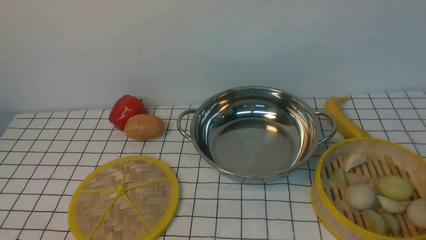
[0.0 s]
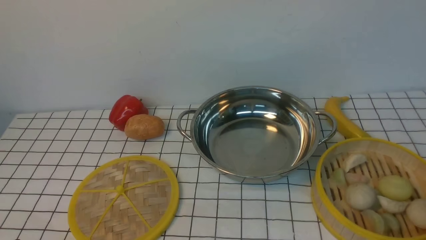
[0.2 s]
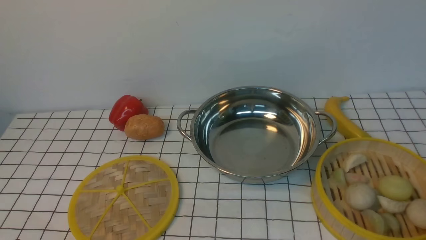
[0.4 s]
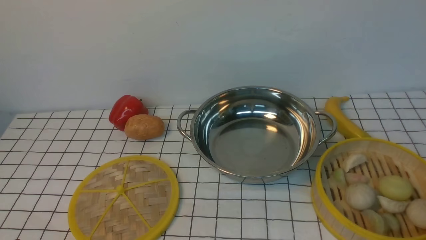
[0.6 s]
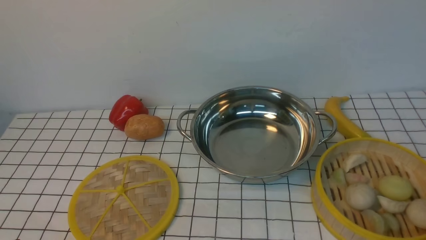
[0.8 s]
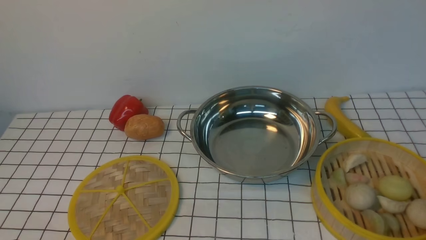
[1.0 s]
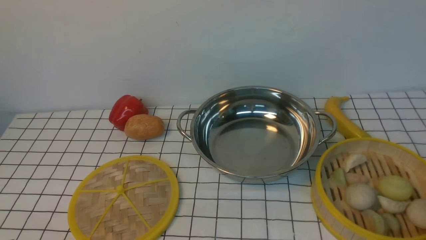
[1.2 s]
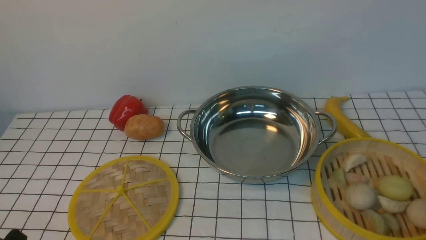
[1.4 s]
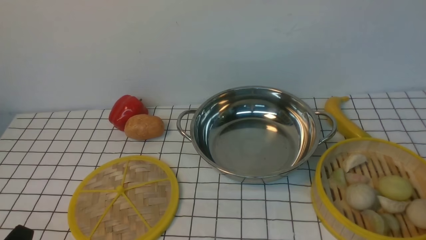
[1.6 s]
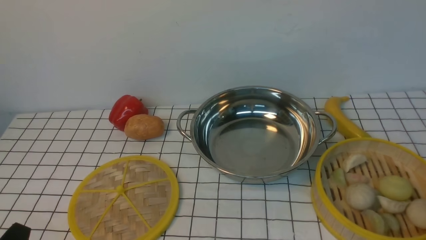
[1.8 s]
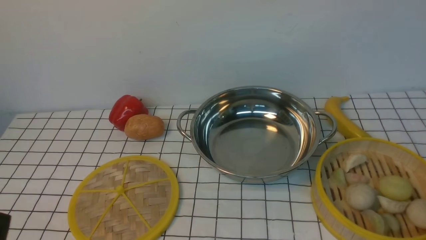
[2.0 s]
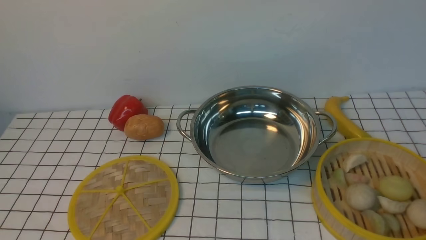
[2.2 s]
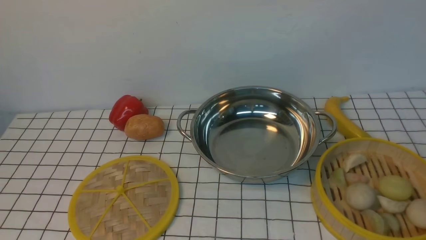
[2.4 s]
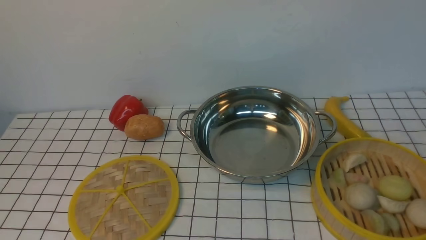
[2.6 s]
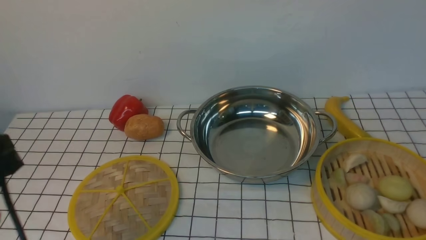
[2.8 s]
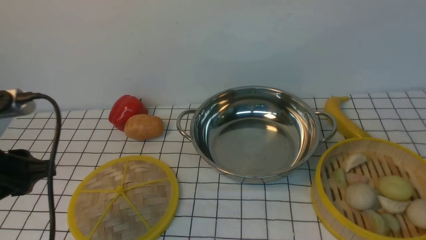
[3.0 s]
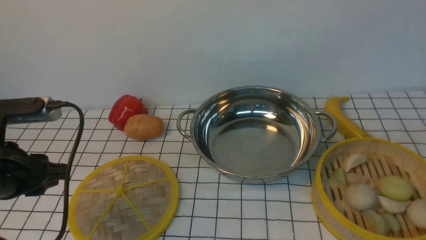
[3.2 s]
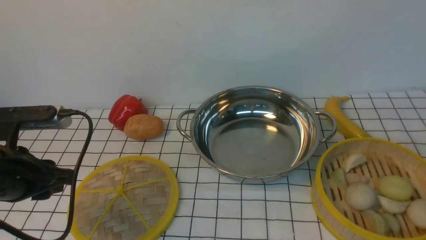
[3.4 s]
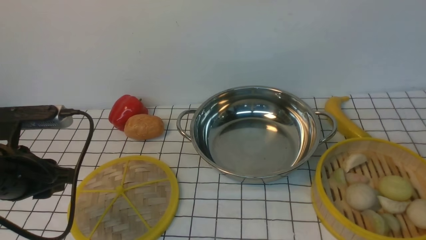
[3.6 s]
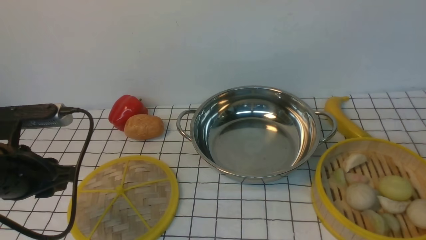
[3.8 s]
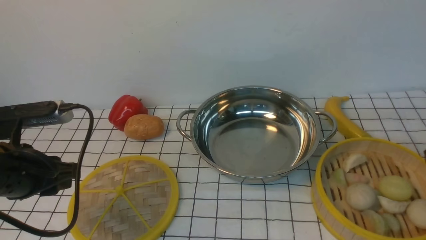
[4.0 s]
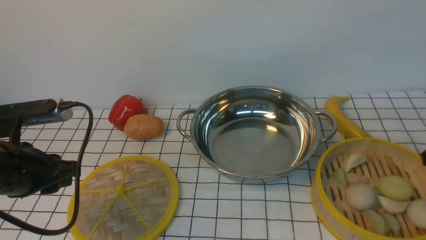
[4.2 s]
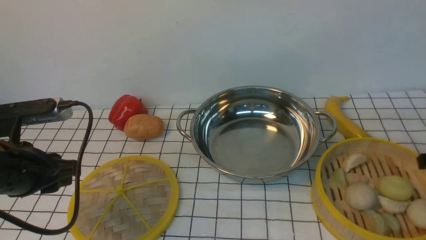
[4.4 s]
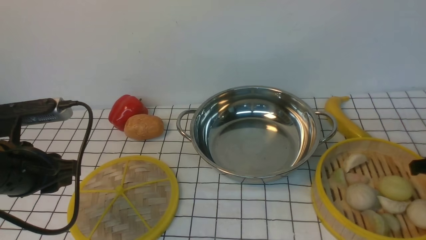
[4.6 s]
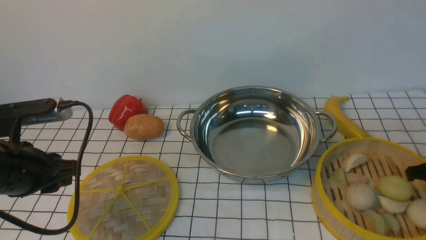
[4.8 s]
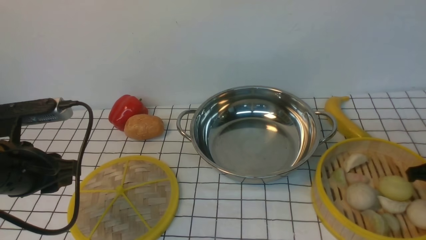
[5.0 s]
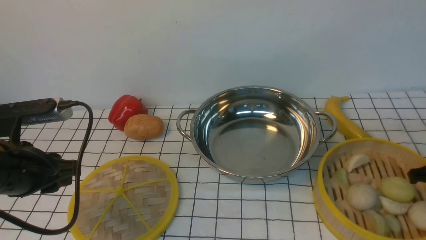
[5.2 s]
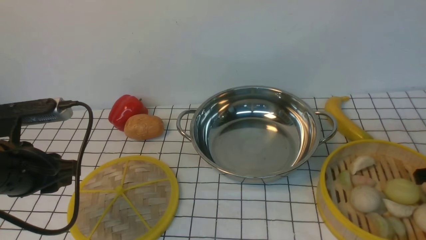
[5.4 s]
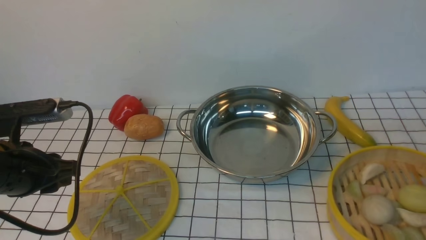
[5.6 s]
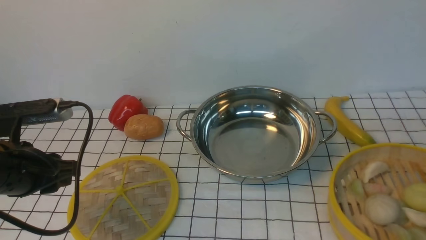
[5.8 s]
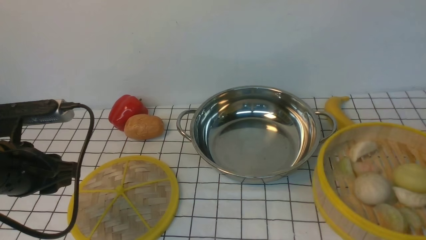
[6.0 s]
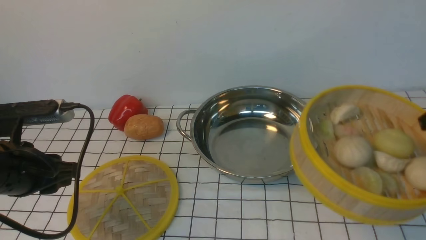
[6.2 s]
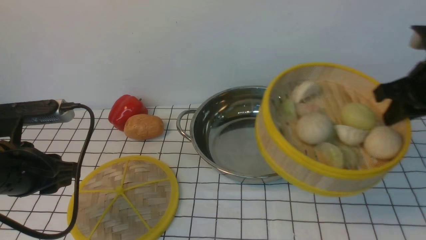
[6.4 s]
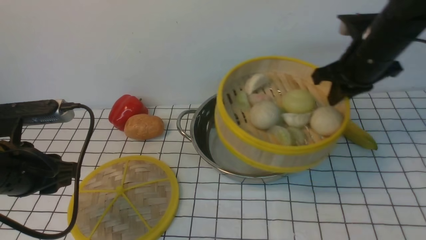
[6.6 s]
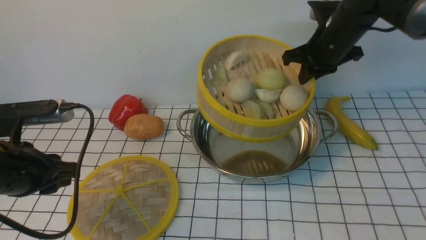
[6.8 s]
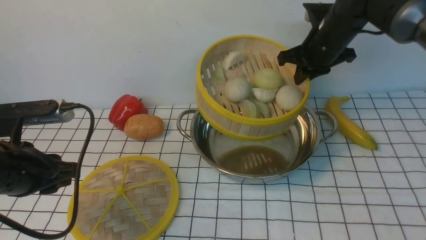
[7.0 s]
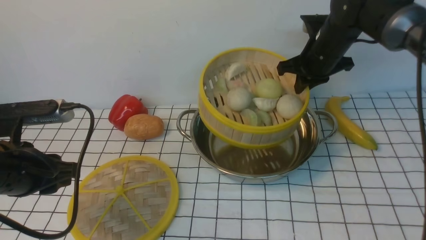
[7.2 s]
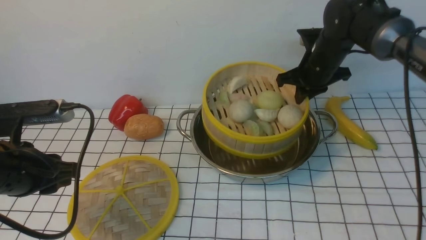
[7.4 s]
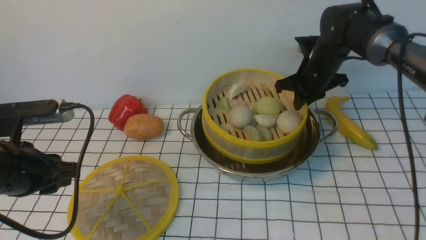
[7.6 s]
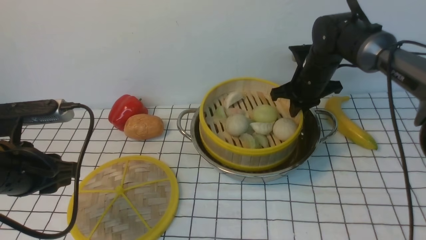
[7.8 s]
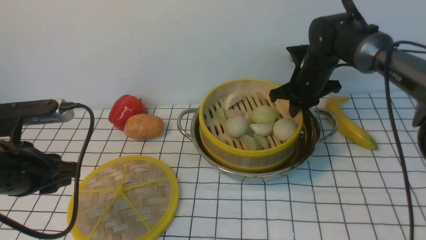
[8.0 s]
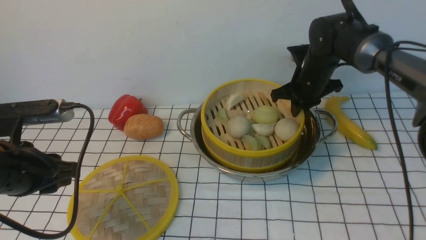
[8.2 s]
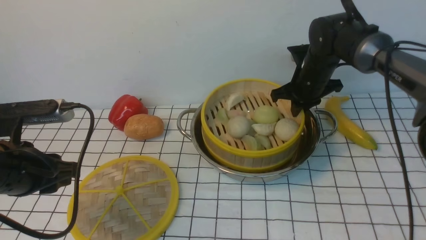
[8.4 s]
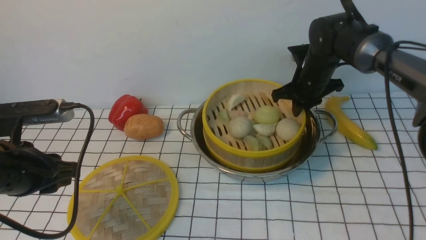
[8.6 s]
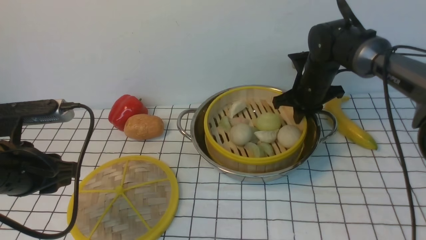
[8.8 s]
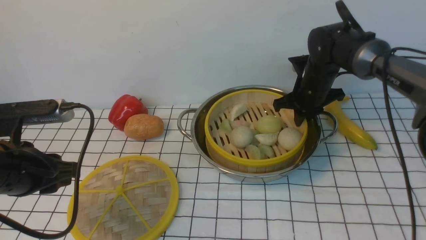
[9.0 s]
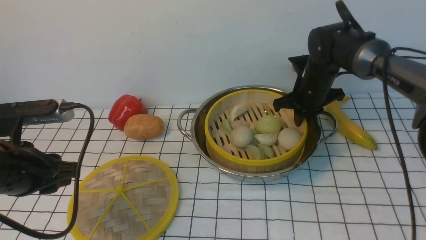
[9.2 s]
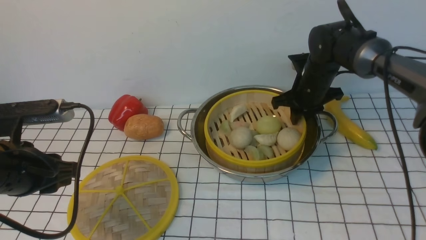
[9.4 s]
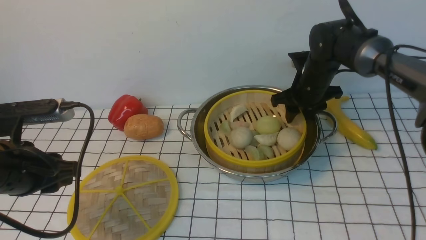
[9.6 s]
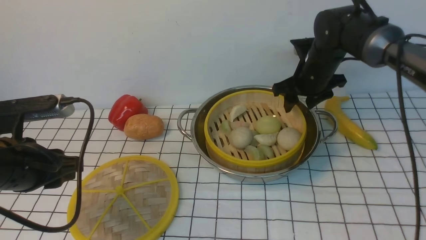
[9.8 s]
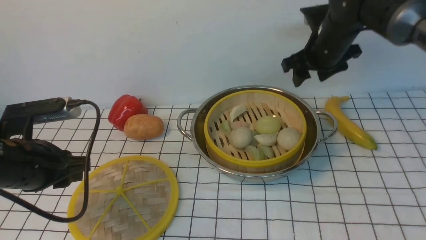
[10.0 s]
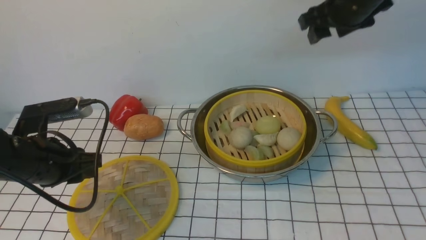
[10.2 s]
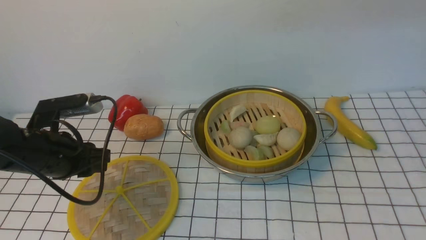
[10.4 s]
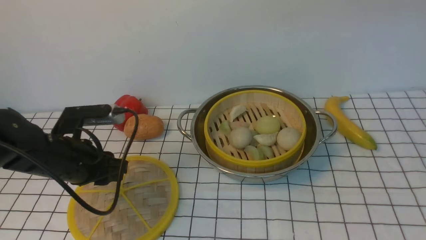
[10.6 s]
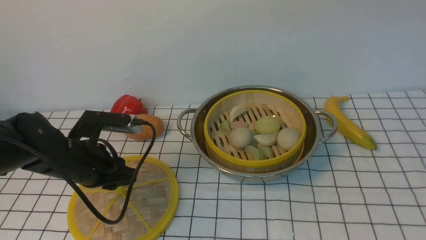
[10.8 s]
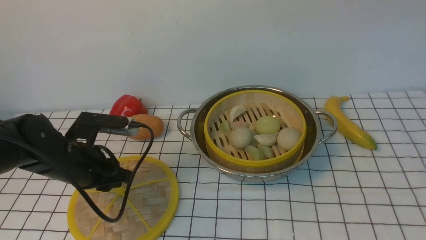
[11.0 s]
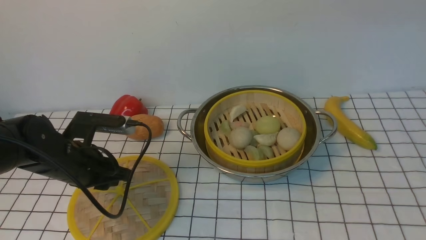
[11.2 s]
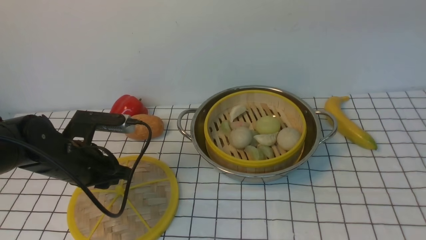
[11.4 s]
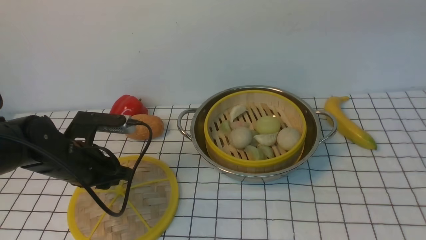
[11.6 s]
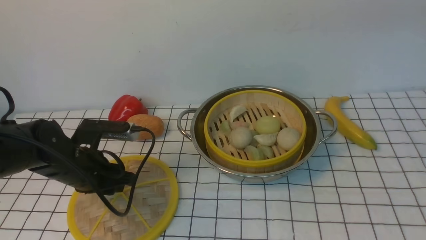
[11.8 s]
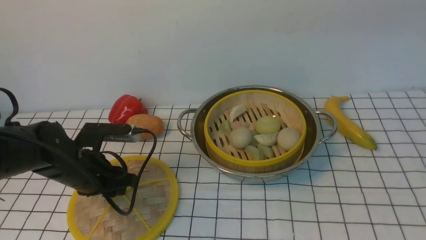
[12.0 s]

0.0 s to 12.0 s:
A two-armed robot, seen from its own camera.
Task of the whole recording: place the steamer in the pot on the white tablecloth, and put the lid on the steamer.
Step, 0.0 to 5.8 s: use the right arm to lift the steamer closest to it.
Step, 6.0 to 9.8 s: use the right arm to put the steamer into the iron steamer pot in the middle.
1.6 to 3.0 s: The left gripper shifts roughly 15 cm upward and forward.
3.0 to 4.4 s: The left gripper moves forward, approximately 5 cm.
4.4 to 6.0 s: The right gripper closes its fingers.
6.0 to 7.6 s: The right gripper heads forward and to the left, covering roughly 30 cm.
7.6 to 9.0 s: The grippers stay close to where they were, moving slightly.
9.0 to 10.4 s: The left gripper moves about 5 cm. Meanwhile the right gripper shifts roughly 25 cm upward, and opens its fingers.
10.4 to 12.0 s: The left gripper is displaced downward by roughly 5 cm.

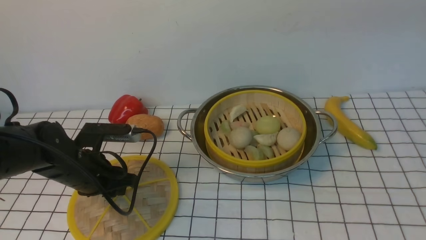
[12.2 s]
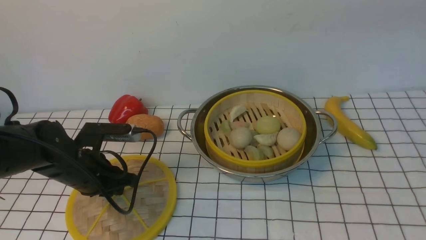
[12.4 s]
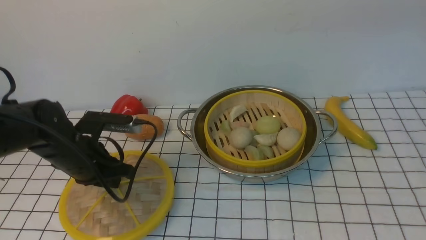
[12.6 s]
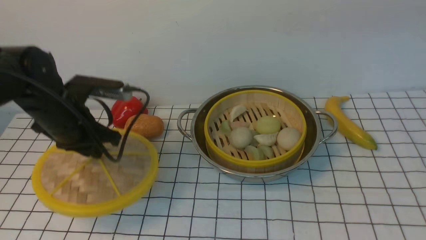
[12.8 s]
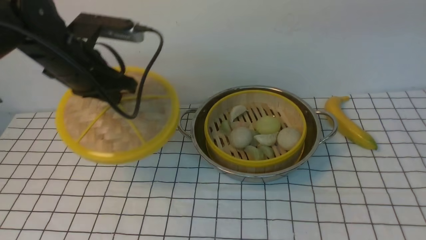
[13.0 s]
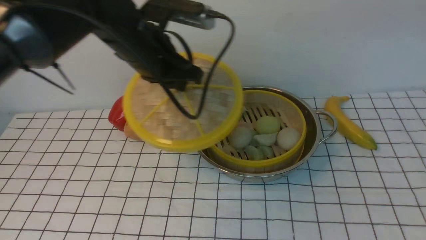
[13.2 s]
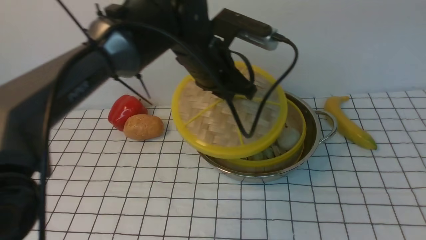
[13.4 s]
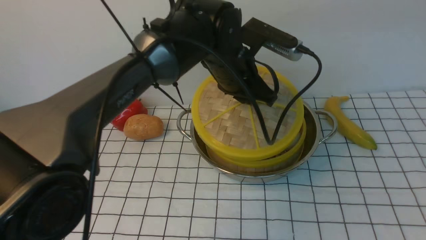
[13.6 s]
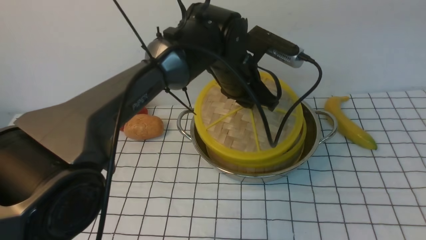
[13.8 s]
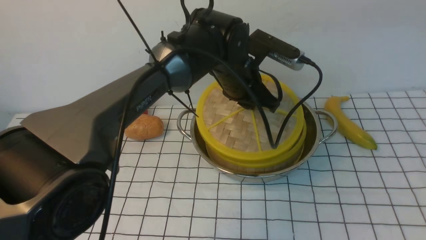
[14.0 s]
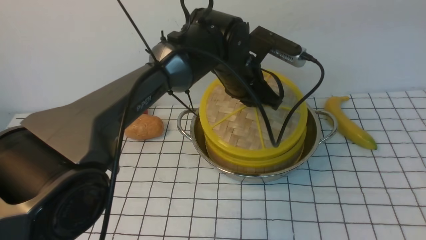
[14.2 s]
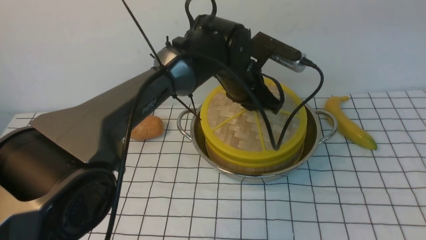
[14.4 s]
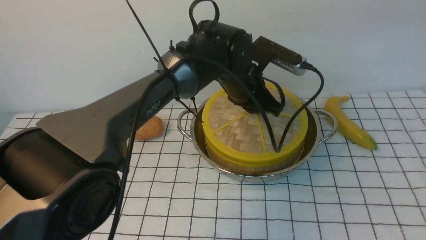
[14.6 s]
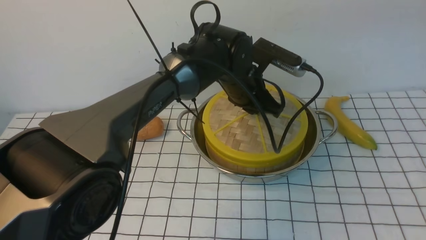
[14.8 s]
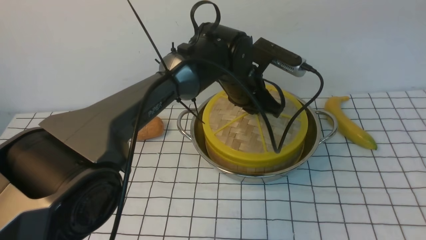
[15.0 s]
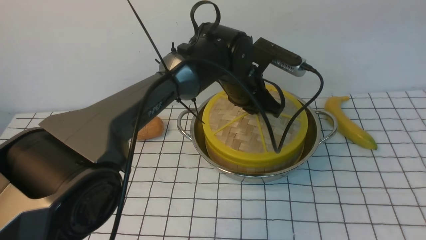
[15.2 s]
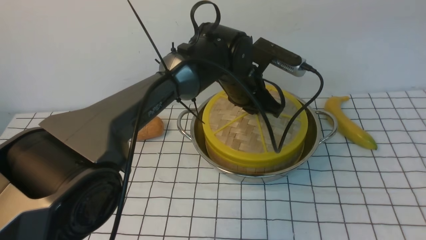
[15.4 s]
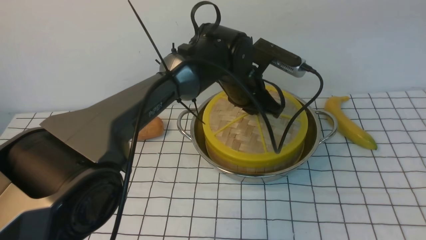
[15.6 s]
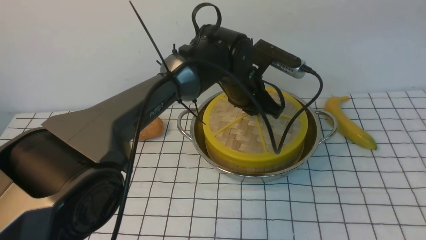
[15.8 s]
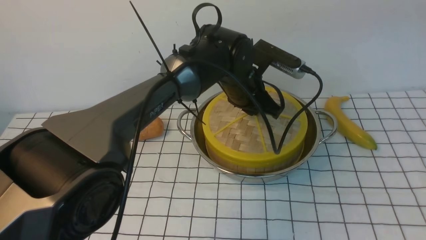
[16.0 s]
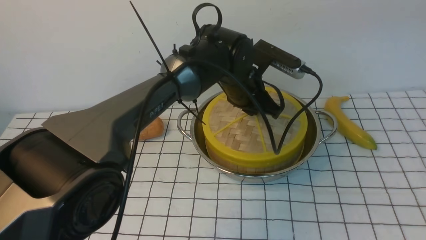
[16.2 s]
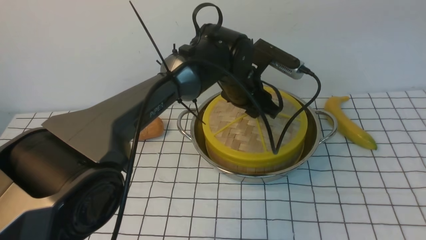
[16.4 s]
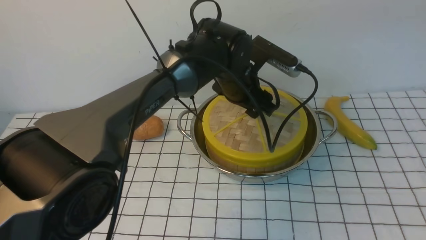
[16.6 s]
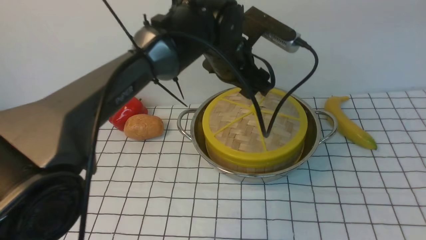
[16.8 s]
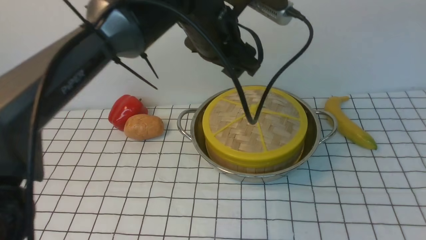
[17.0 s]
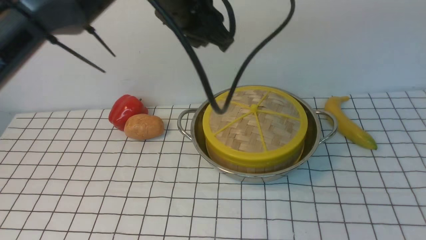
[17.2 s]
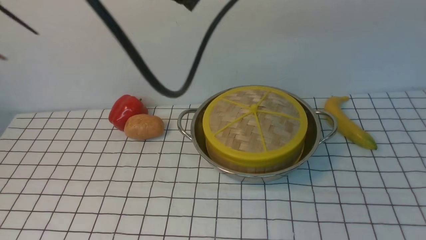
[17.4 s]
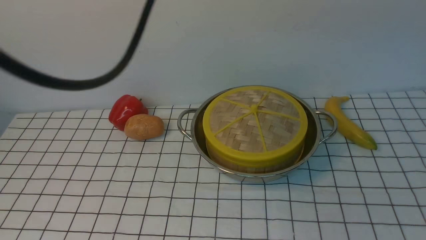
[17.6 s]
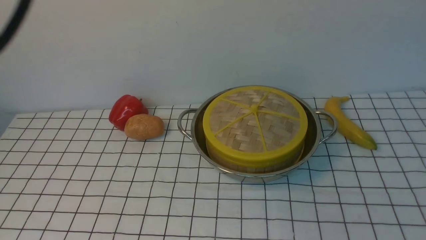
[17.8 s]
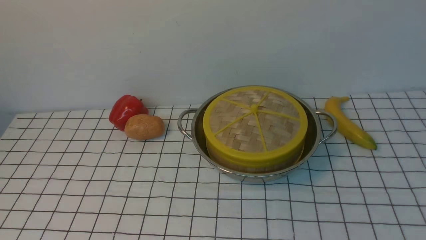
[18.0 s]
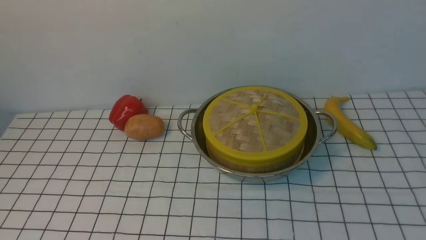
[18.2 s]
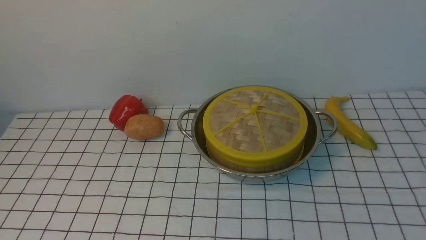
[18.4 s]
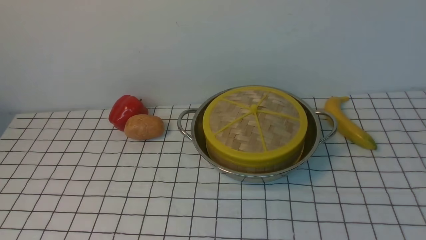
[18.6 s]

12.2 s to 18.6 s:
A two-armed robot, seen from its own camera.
Task of the whole recording: place the steamer in the pot on the white tablecloth, and put the lid on the steamer.
Step, 12.8 to 16.8 s: use the left arm to place the steamer lid on the steamer.
12.2 to 13.8 s: The left gripper travels to the right, upward and forward by about 30 cm.
15.4 to 17.0 s: The left gripper heads upward, covering some 10 cm, and opens.
17.0 to 18.6 s: The left gripper travels backward, to the left and upward by about 40 cm, and closes its fingers, while the right gripper travels backward, downward and to the right by about 20 cm, and closes its fingers.
